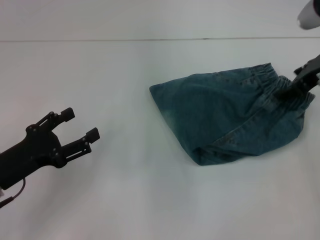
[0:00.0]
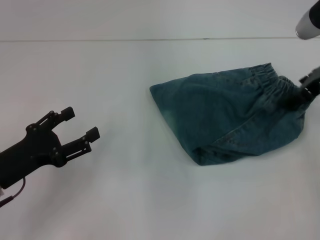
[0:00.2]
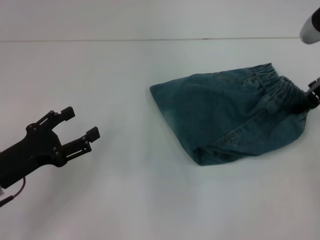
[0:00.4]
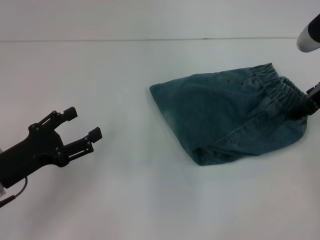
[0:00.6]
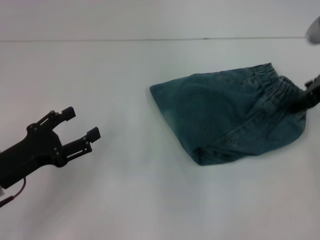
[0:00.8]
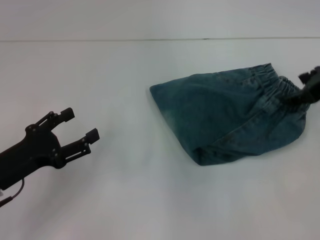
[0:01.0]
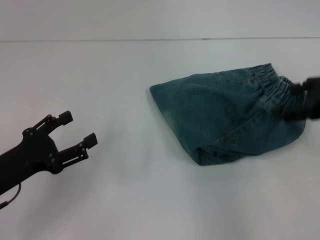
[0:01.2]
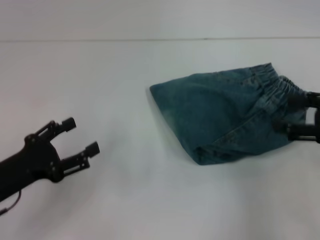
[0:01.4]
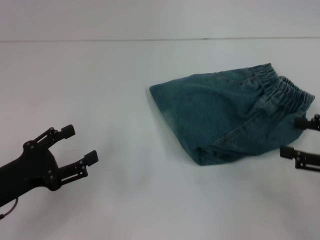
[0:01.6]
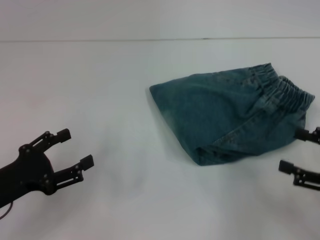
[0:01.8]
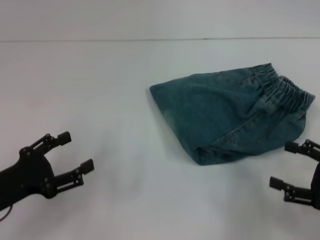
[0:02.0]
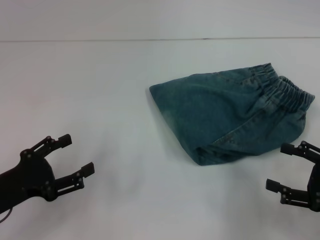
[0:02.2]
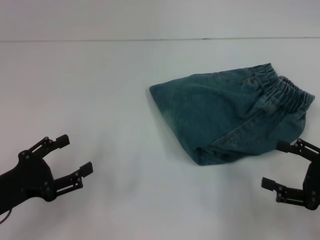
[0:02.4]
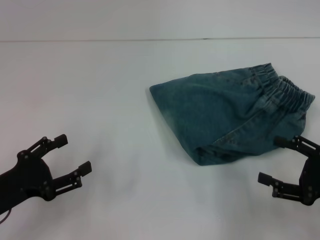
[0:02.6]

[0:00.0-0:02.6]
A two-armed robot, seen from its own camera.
0:00.0 to 0:01.2: The right gripper goes about 5 cm backward.
0:01.2 to 0:02.6: The right gripper goes some 15 cm downward and backward.

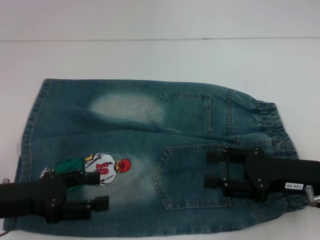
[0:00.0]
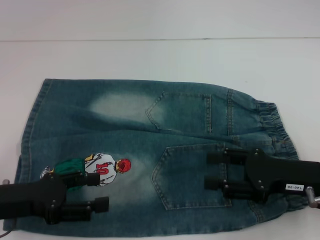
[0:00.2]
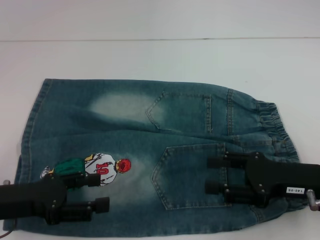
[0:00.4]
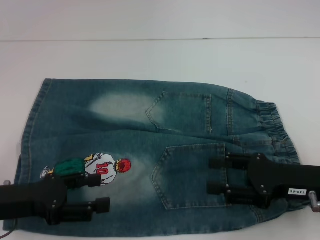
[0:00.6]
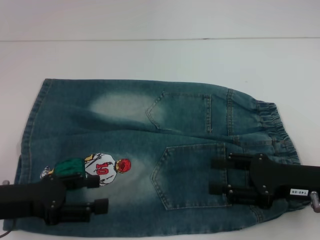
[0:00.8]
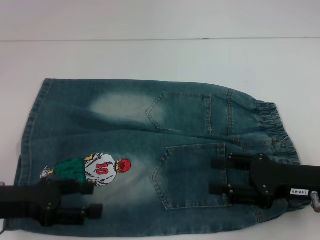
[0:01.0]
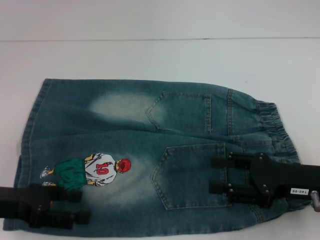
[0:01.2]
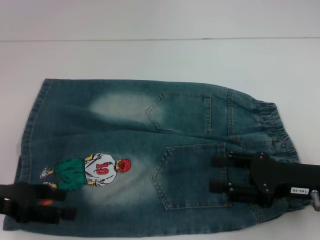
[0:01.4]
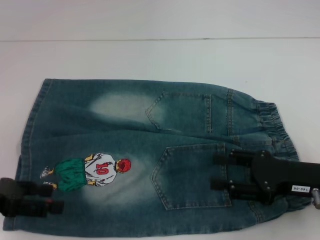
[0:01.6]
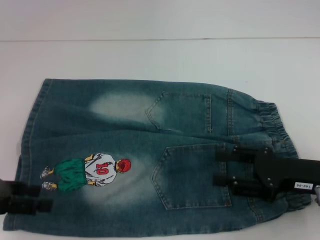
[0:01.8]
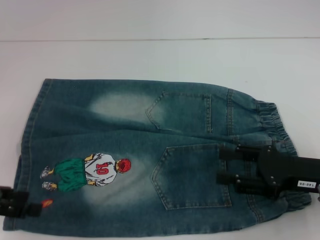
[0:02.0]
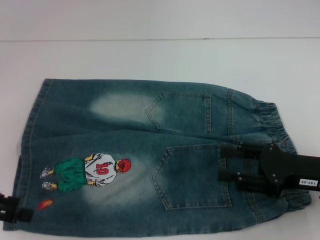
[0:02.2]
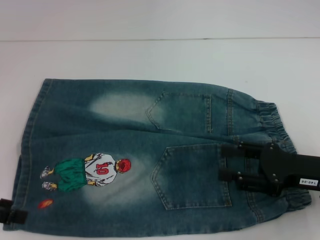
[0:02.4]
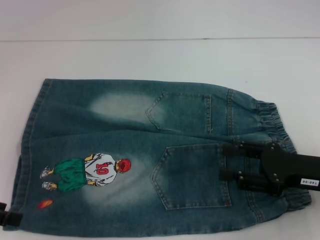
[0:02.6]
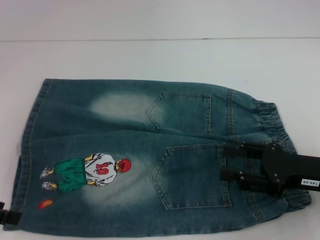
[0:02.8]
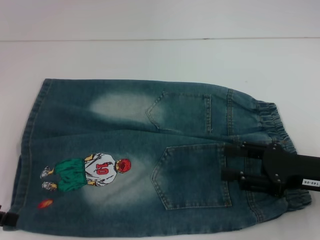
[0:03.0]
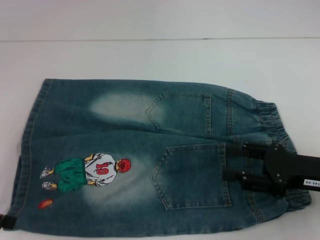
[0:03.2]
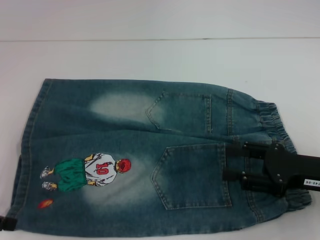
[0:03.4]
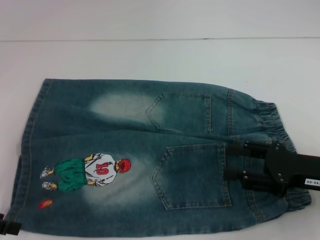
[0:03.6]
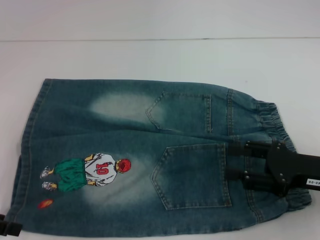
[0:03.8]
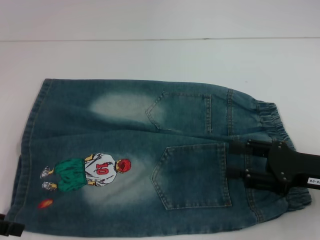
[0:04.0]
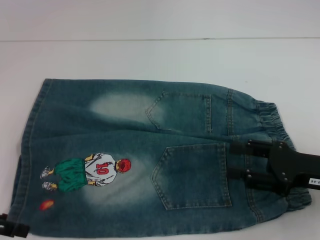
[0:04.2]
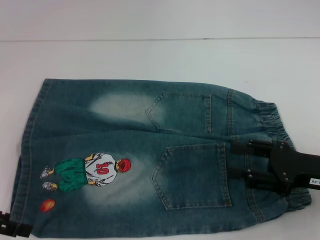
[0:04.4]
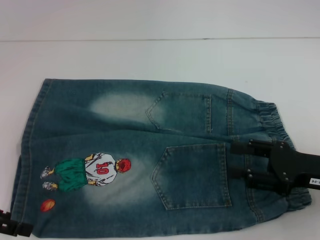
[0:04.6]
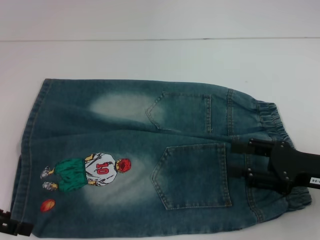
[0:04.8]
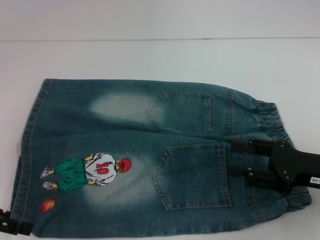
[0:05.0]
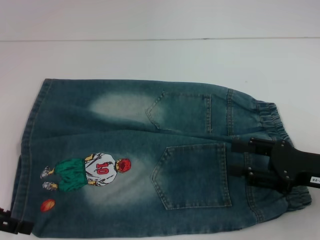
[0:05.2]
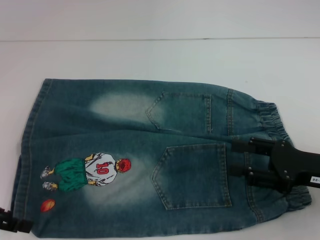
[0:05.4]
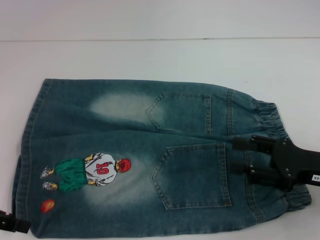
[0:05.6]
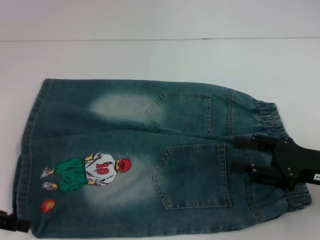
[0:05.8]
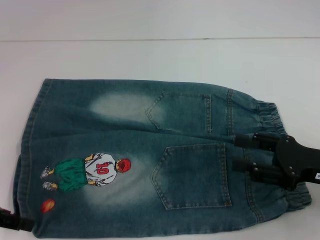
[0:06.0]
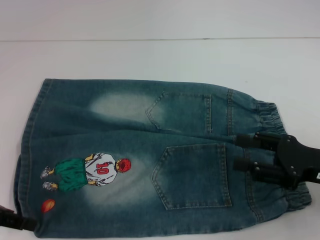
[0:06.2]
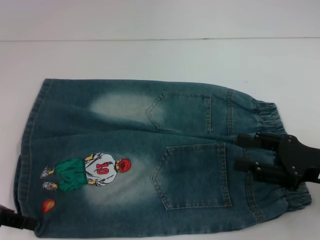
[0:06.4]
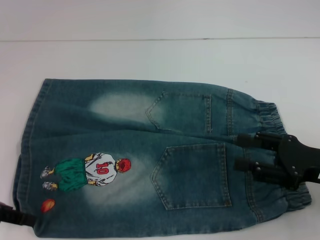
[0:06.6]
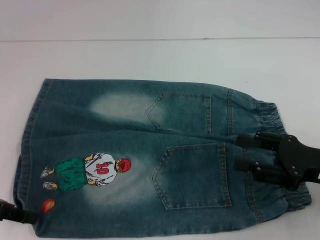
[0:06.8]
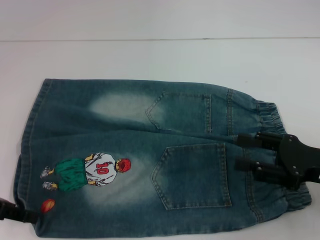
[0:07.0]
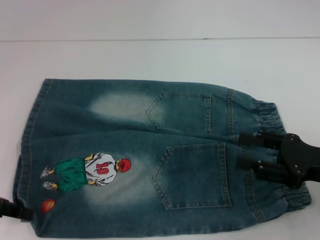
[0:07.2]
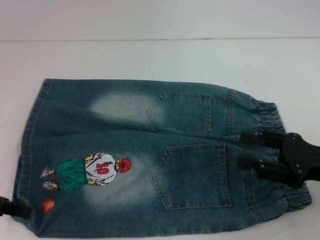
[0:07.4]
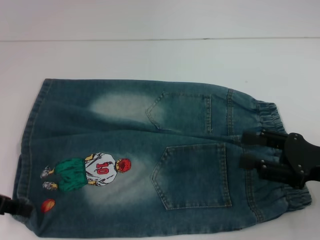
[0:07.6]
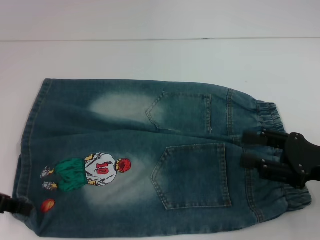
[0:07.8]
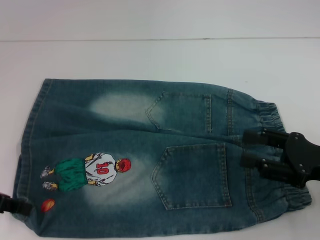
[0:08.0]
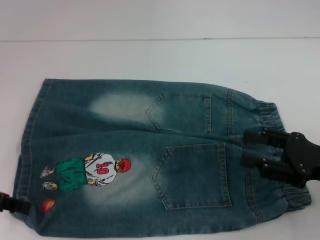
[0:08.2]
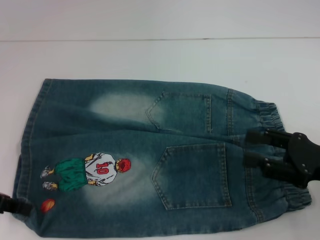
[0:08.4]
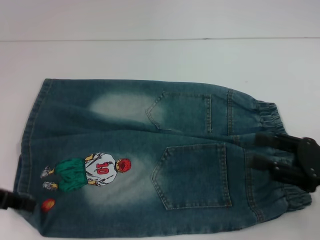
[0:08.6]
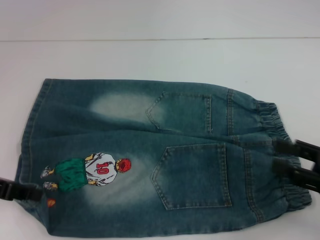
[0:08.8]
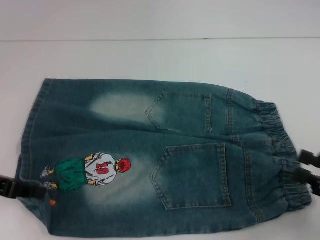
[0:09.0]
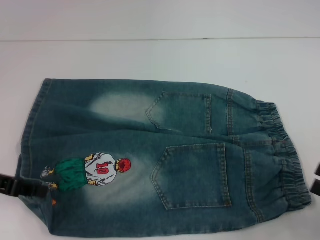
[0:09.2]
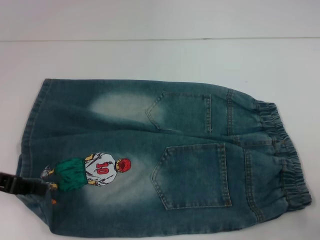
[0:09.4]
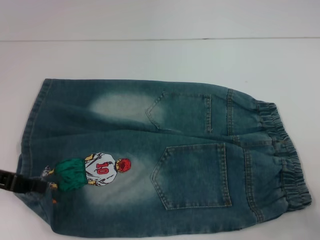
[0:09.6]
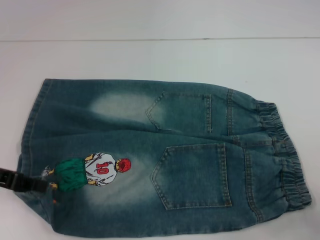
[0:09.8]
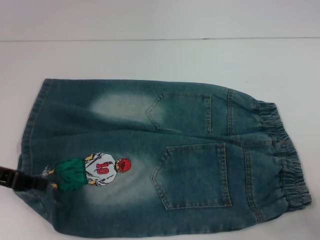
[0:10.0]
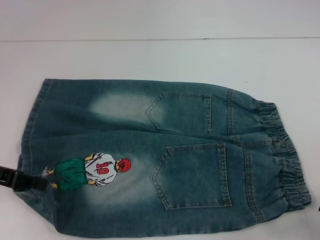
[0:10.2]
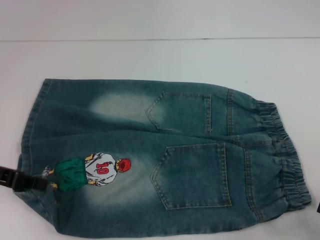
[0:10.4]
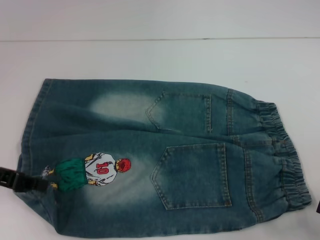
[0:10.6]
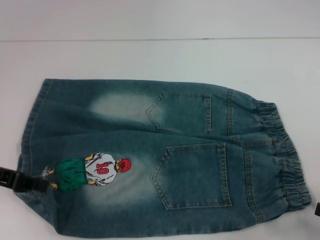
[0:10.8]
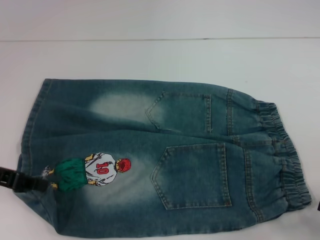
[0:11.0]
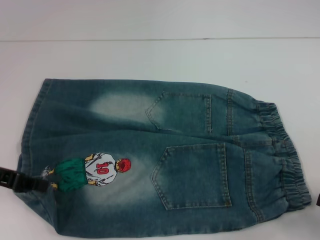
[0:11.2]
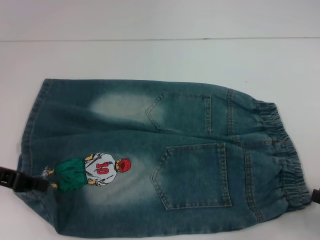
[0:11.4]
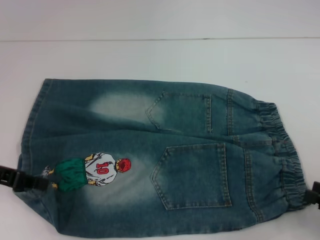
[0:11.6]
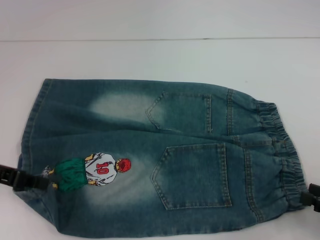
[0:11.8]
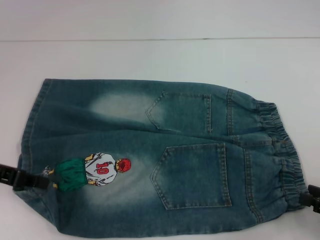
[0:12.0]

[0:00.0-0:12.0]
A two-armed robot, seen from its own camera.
Step, 0:00.0 to 0:08.4: Grab the lower left pant leg with your left hand.
0:00.0 to 0:01.6: The left gripper changes place by some 5 cm.
0:03.0 to 0:04.4: The grippers make only small movements.
0:04.4 to 0:06.0: The left gripper closes.
0:06.0 to 0:07.6: There are only small adjustments of the grippers.
0:07.6 to 0:09.0: The right gripper moves backward and to the right, about 10 cm.
0:09.0 to 0:10.4: The right gripper changes place by some 5 cm.
0:10.4 to 0:12.0: There are only small adjustments of the grippers.

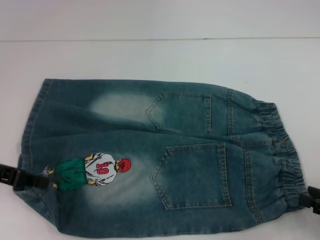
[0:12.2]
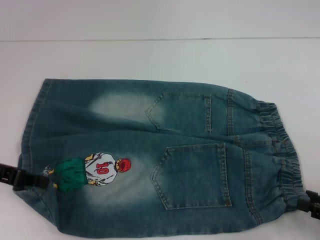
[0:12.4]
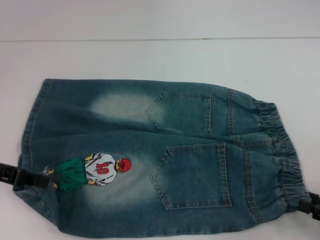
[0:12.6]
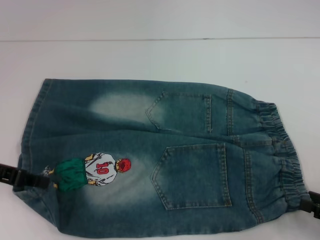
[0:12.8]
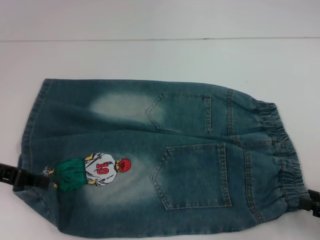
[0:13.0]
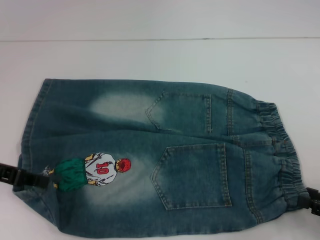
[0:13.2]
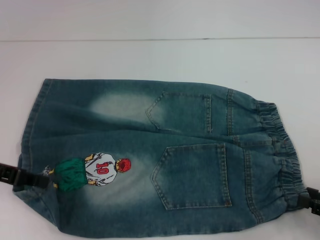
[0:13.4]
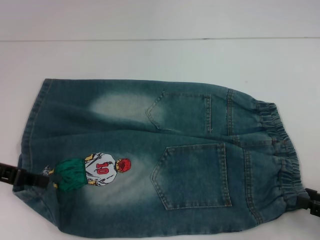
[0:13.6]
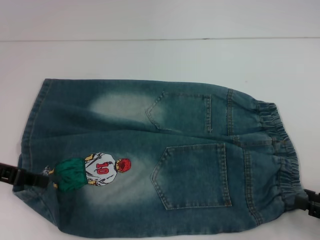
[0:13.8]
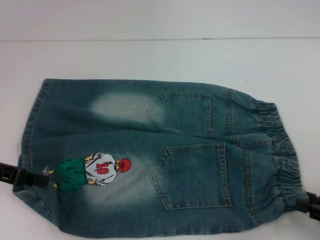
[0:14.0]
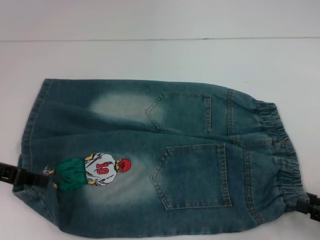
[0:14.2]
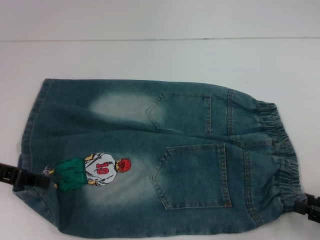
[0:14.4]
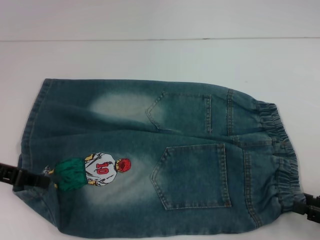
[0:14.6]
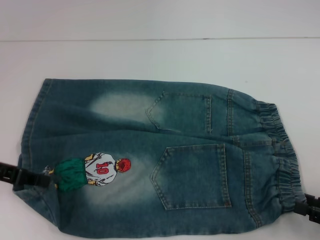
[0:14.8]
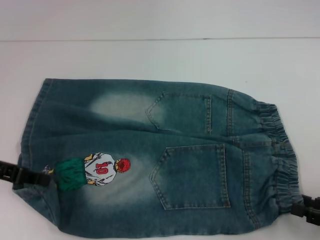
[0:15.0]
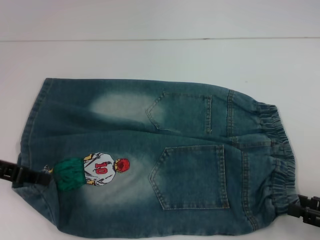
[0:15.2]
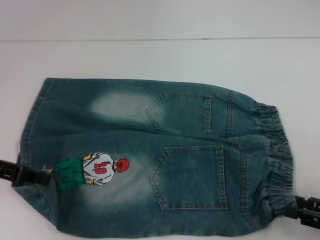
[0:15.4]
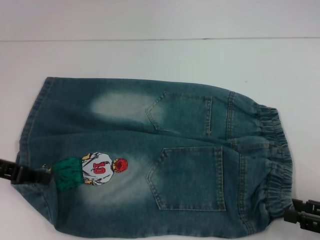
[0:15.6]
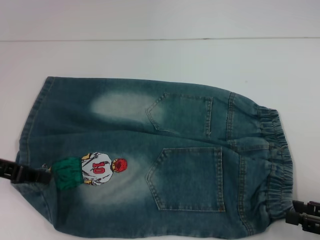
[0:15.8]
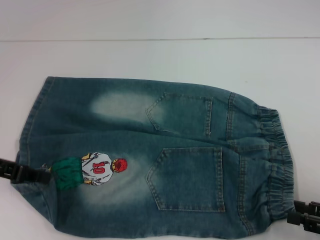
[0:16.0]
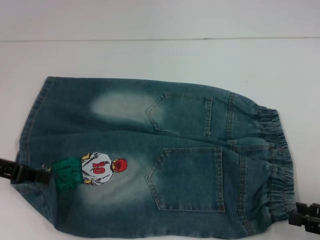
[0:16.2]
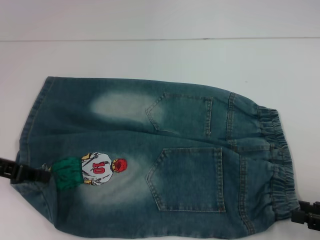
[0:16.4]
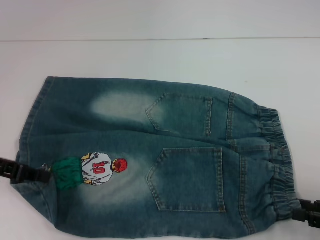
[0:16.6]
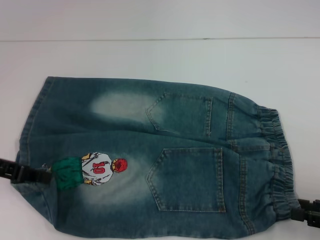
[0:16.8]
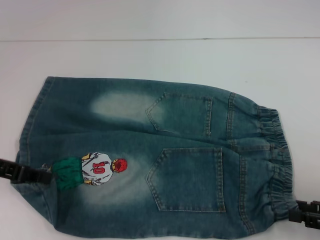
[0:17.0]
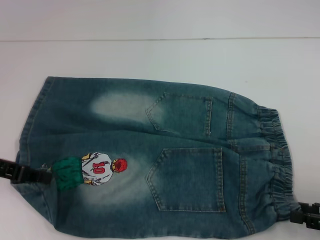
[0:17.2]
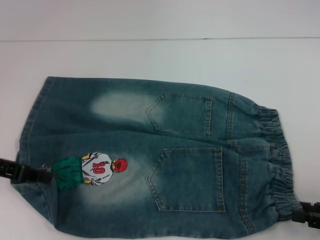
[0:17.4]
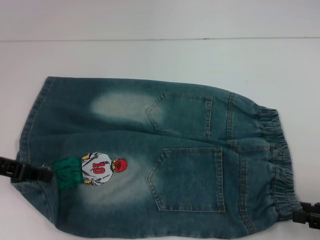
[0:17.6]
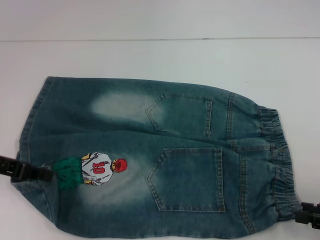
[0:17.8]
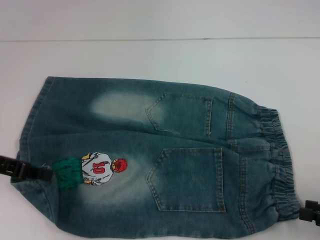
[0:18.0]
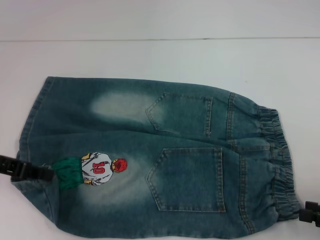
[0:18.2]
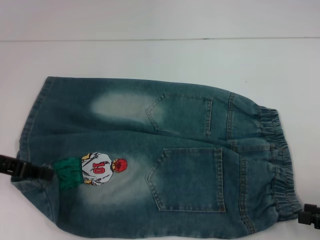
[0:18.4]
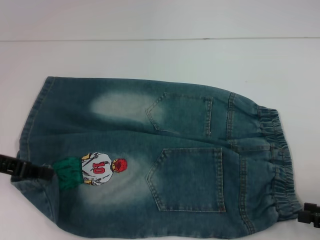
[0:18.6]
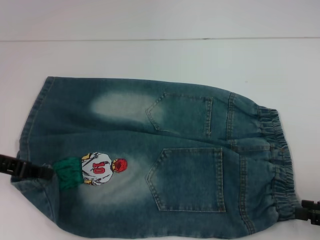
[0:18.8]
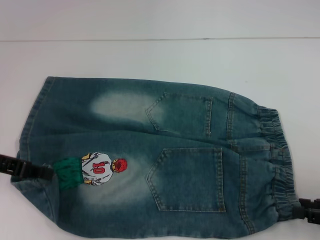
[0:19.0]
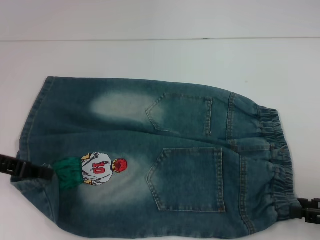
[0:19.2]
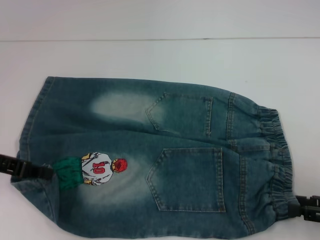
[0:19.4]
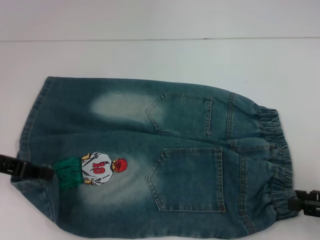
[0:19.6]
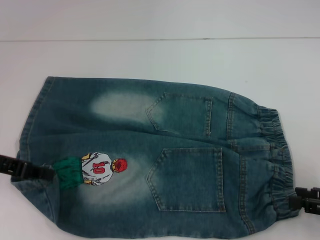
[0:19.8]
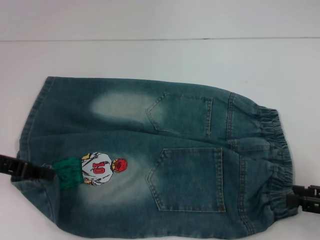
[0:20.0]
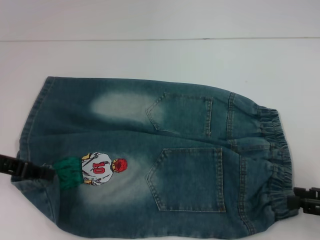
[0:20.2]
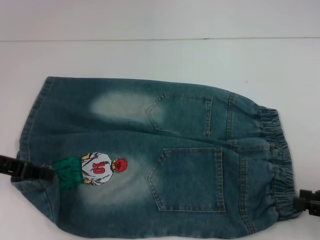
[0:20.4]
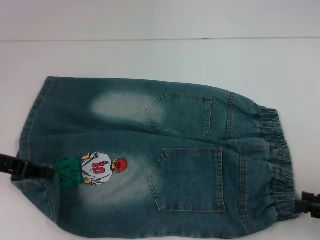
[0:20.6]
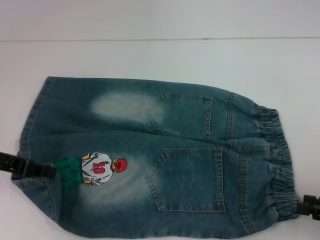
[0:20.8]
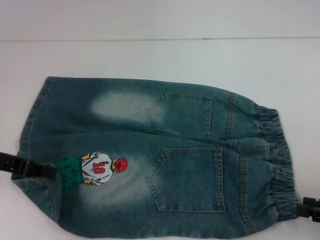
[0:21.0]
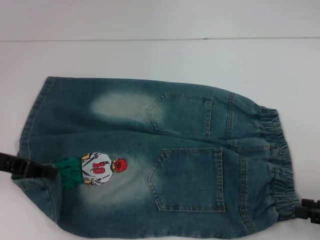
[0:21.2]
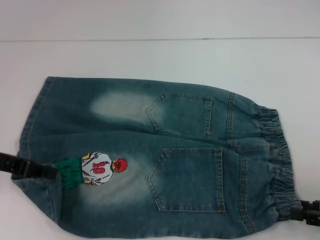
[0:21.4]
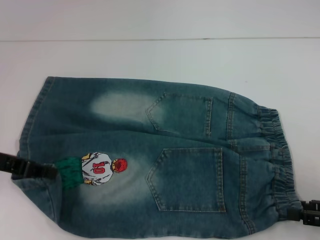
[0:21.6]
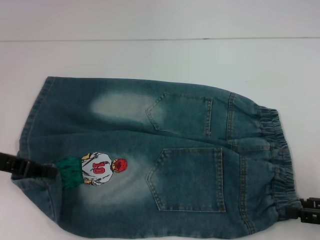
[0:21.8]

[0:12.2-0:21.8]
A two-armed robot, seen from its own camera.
0:12.2 to 0:13.8: Neither gripper changes place.
0:13.8 to 0:17.0: The grippers stay close to where they were, moving slightly.
0:17.0 to 0:18.6: Both grippers stay put.
0:18.6 to 0:21.8: The grippers stay close to where they were, moving slightly.
